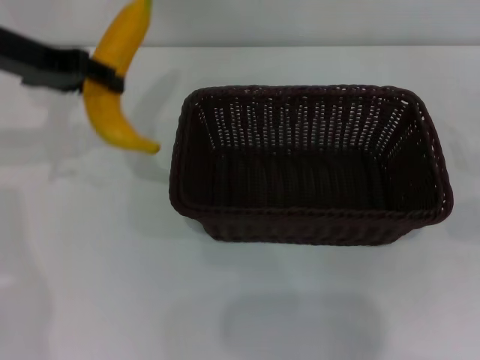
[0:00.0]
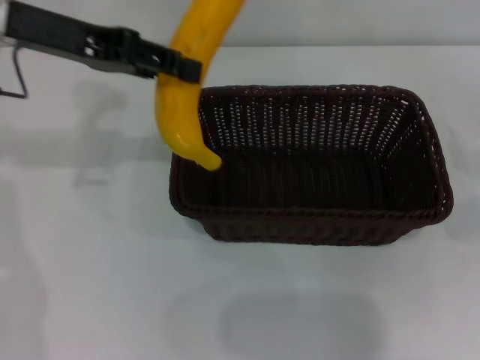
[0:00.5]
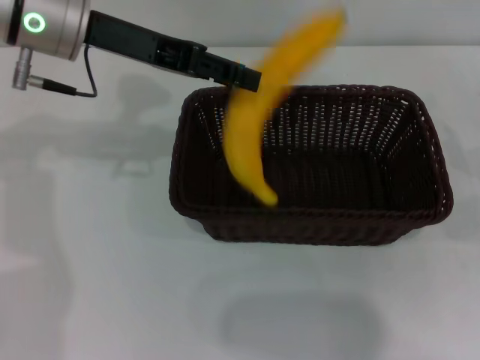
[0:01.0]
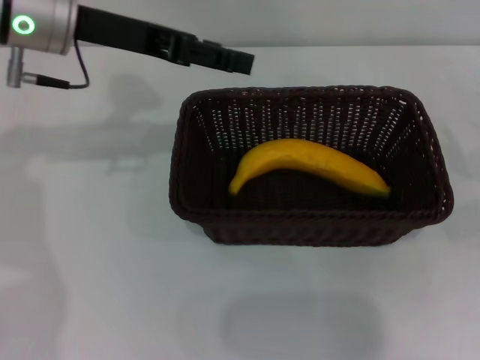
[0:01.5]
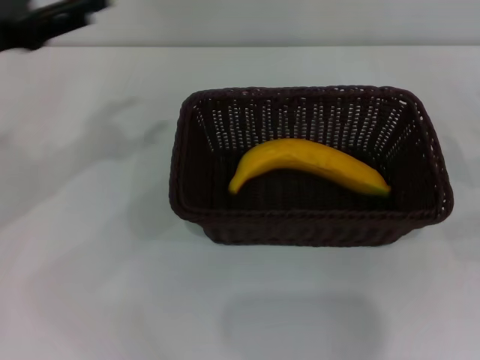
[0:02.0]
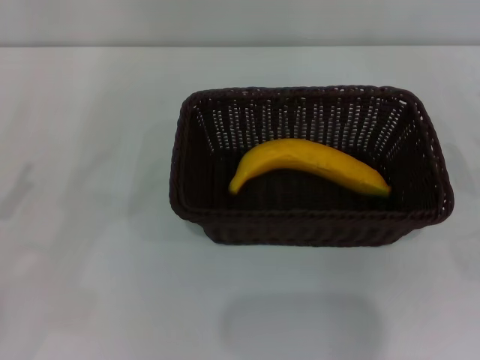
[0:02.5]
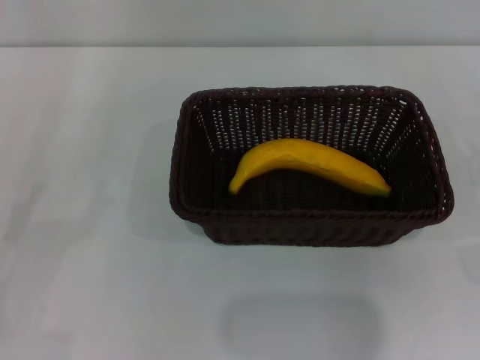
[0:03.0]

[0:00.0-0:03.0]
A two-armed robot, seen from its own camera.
Step, 0:00.0 to 0:01.0: Place the banana into the dark basket with the left gripper.
0:00.0 to 0:01.5: The left gripper is displaced to the right by about 5 cm, and opens.
0:01.5 to 0:03.0: The left gripper goes about 35 cm backward, downward and to the left.

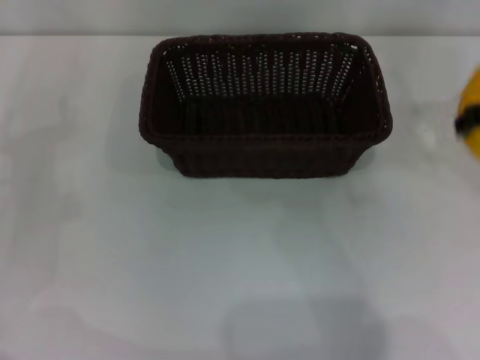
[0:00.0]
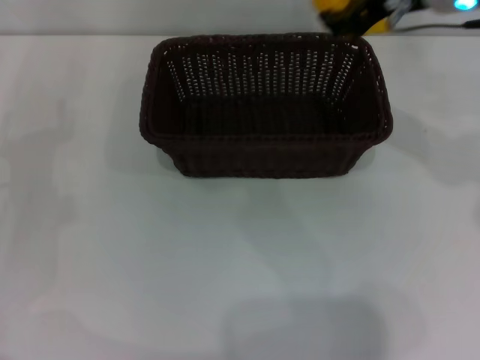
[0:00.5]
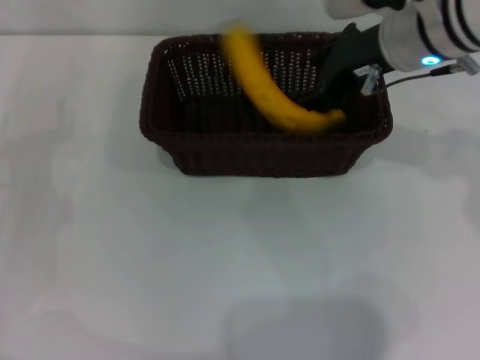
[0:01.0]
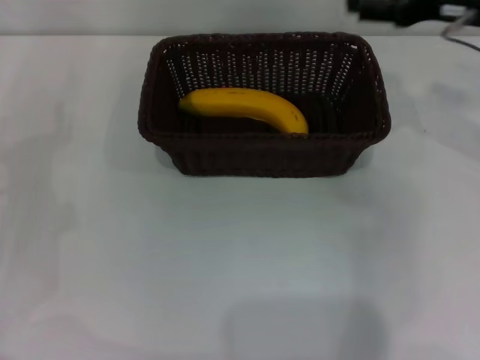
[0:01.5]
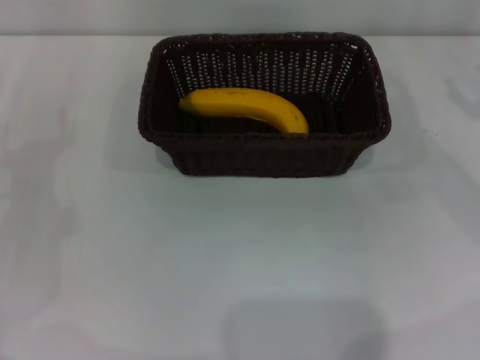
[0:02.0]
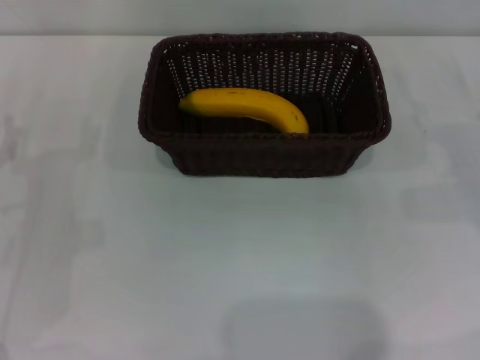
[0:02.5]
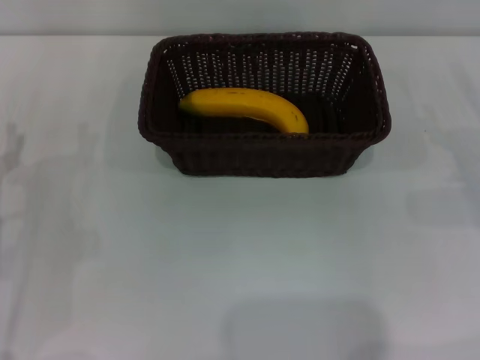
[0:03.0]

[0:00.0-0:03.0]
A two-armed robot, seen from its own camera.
Step, 0:00.5 to 0:01.0: Place the banana into the dark basket with the right gripper.
0:00.0 to 0:01.5: The right gripper reaches approximately 10 cm to the left, then returns, and opens its fingers.
0:01.5 to 0:03.0: The right gripper is displaced downward, to the right and backward by about 20 cm.
